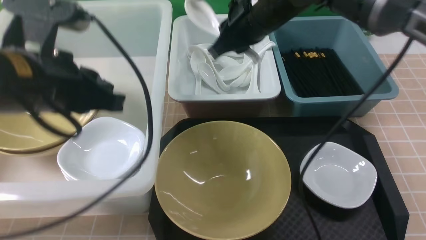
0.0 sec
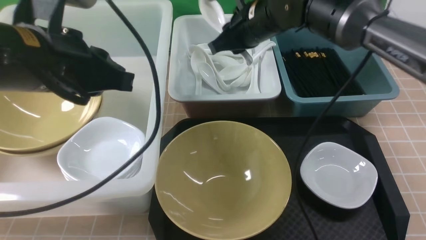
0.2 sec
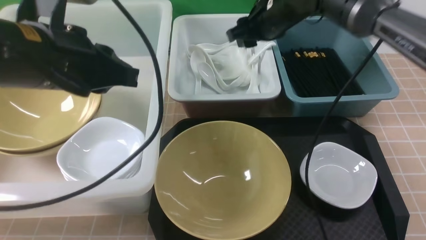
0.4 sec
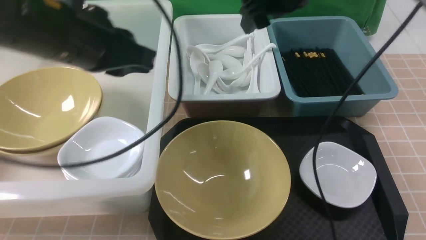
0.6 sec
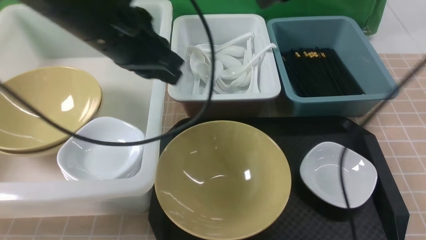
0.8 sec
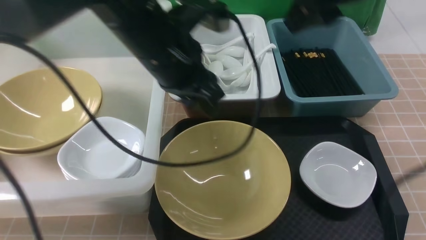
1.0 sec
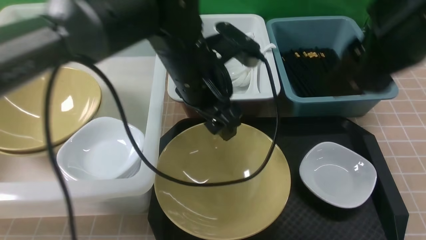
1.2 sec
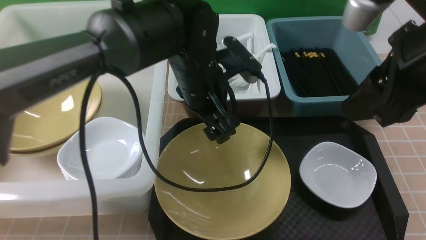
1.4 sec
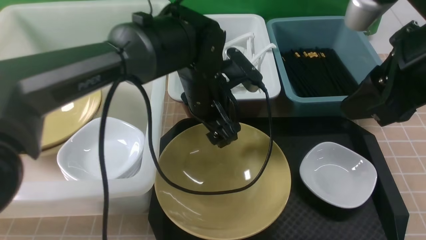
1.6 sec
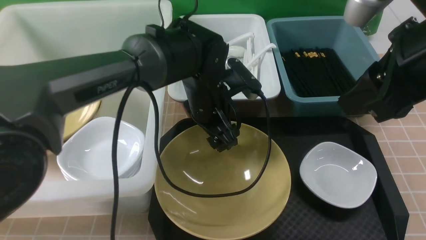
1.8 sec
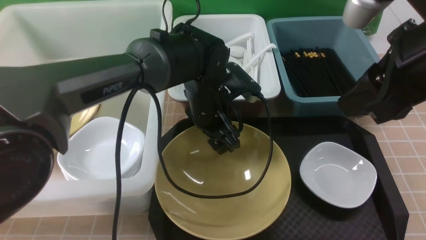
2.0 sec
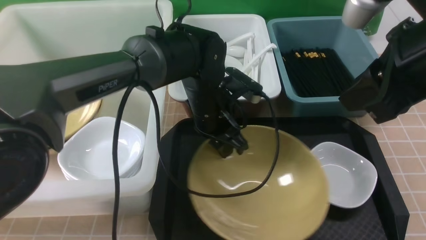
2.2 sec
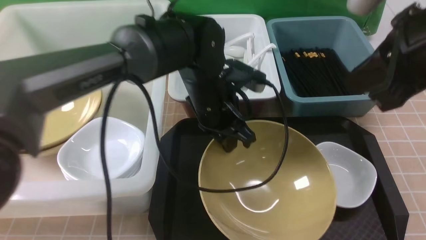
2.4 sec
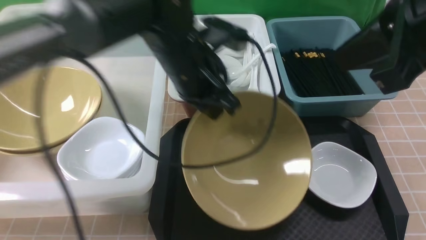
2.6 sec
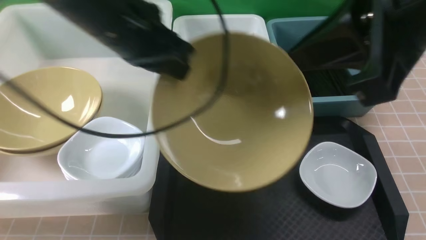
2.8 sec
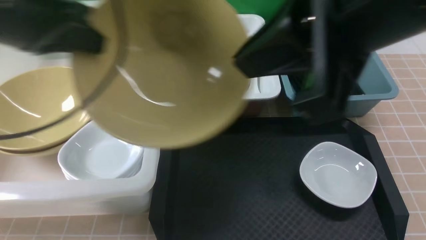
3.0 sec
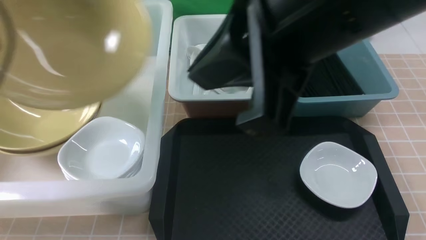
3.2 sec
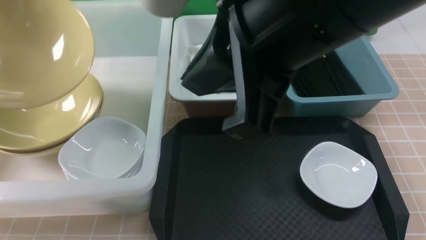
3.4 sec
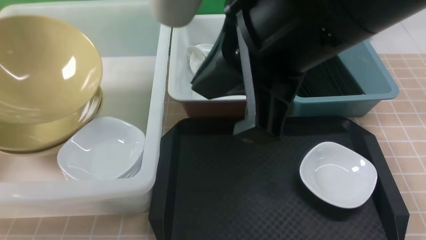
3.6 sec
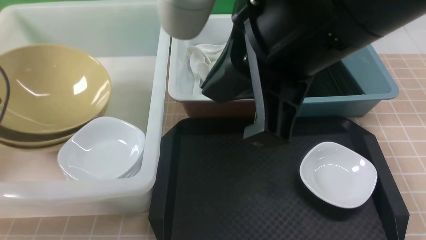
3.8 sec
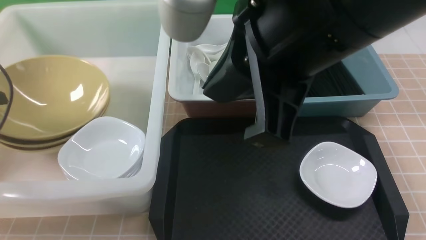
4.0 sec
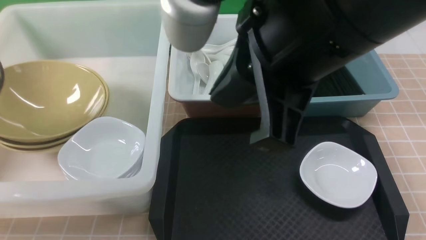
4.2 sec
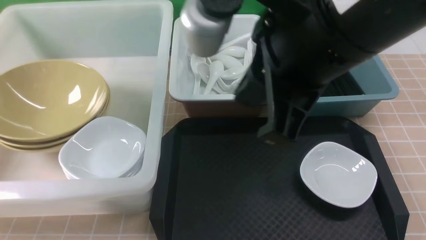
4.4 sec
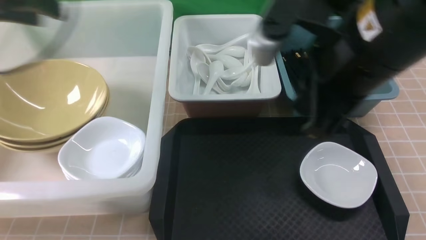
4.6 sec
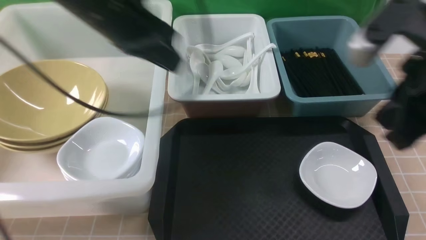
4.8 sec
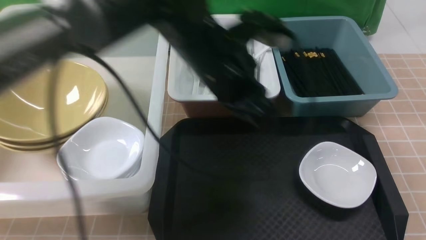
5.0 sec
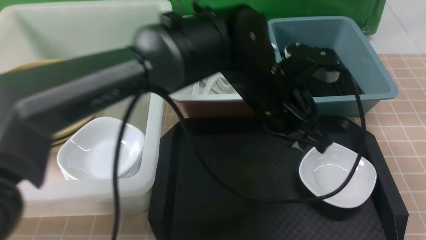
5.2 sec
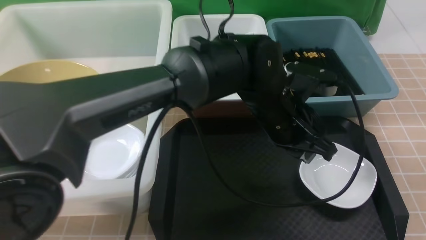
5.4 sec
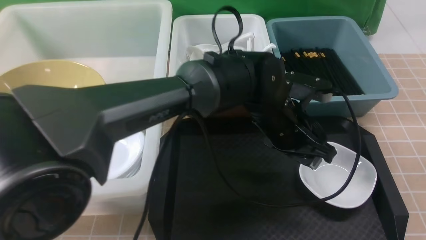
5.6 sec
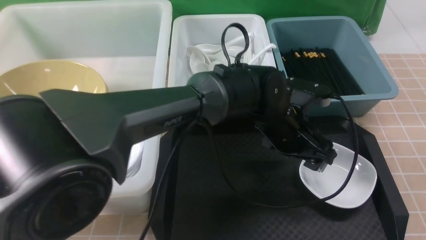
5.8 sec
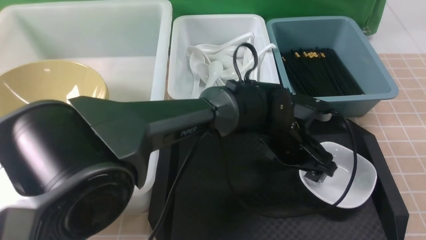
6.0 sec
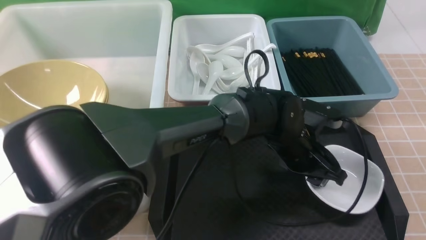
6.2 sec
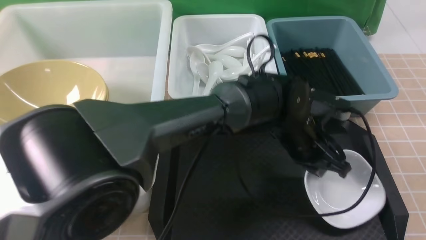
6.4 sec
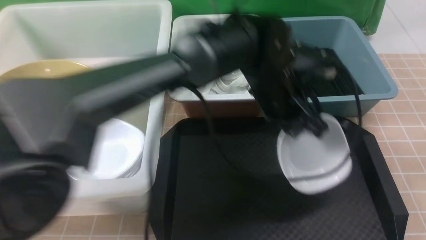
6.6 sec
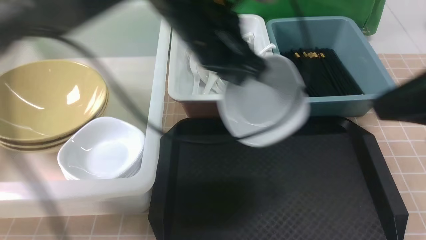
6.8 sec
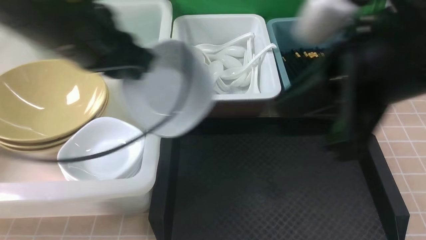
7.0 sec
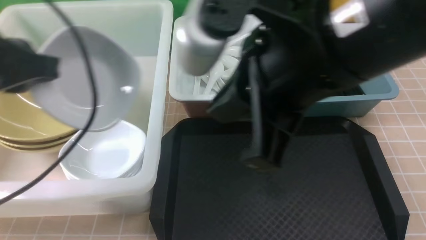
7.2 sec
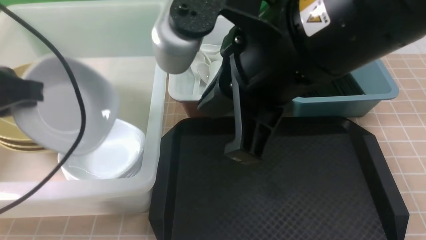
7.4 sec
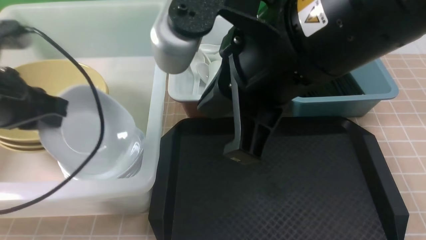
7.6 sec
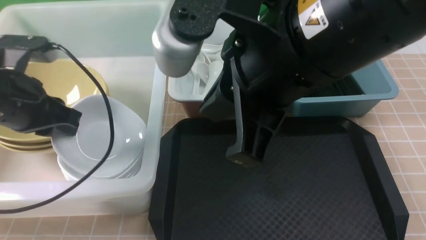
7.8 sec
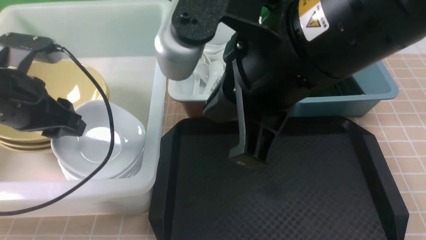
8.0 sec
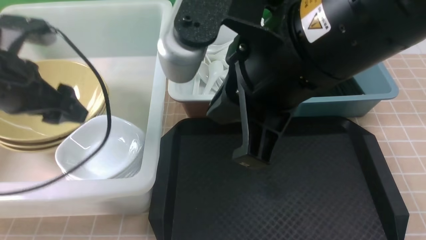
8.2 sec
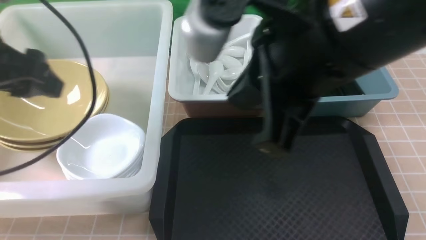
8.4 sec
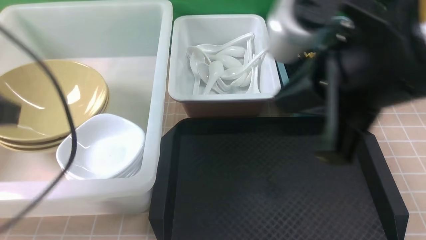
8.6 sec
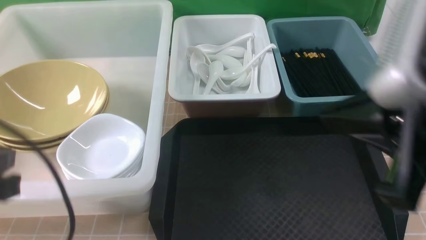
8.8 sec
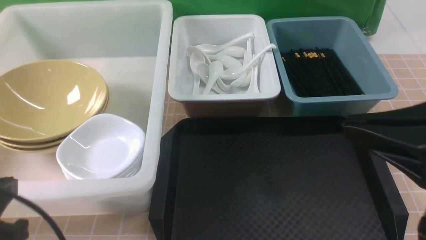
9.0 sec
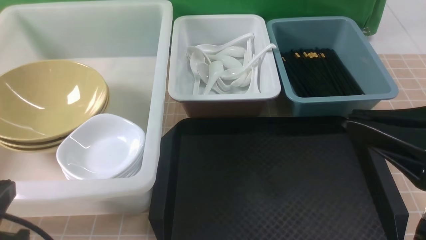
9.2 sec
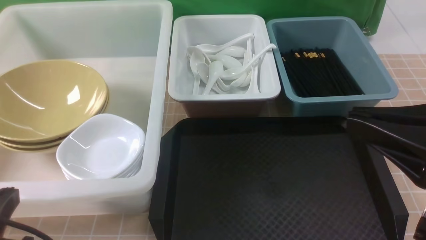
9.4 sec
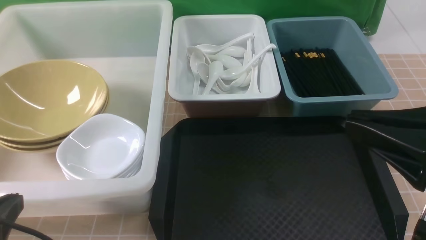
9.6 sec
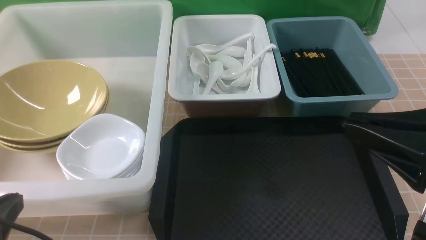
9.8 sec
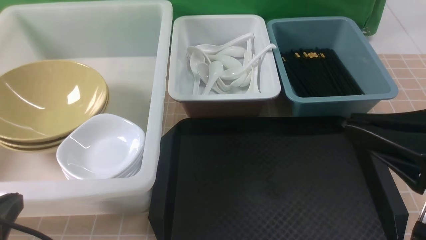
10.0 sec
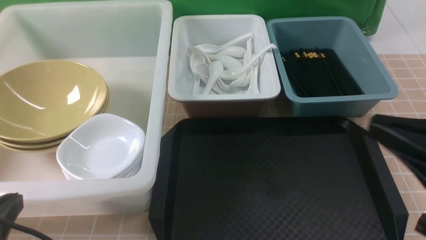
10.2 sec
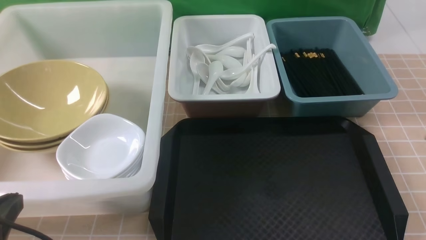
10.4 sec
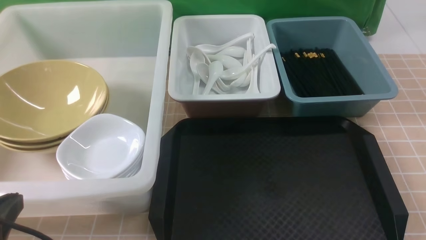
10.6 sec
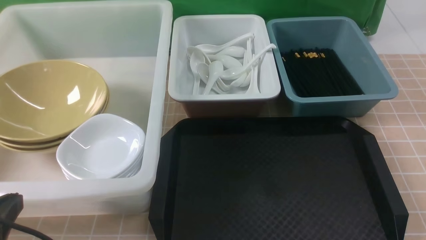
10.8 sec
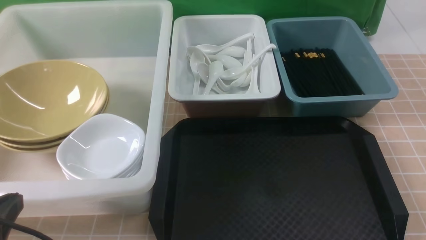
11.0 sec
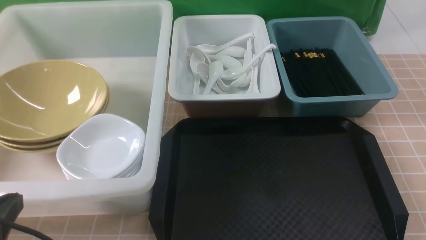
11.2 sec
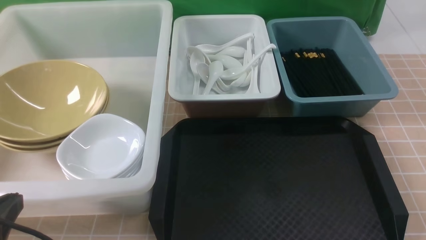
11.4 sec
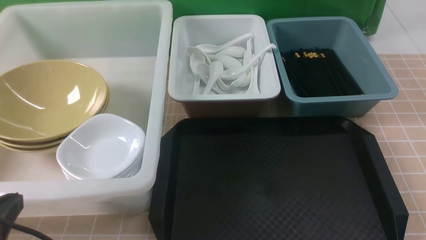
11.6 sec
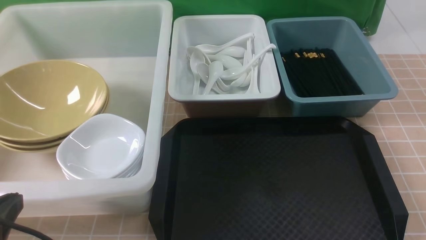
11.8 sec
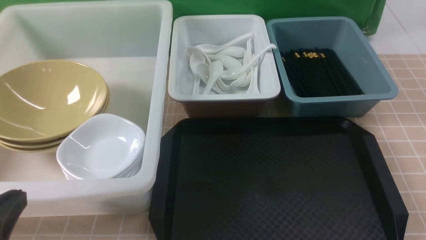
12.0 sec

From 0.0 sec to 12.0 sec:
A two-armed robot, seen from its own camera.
Task of the whole recording: on brown table put chopsticks spoon bowls plates into blue grey white boxes.
Step, from 0.0 sec to 0.6 sec: use the right arm to put the soup spoon into the small storage box in the middle.
Step, from 0.8 sec to 2.4 sec: use the left arm to grab the yellow noodle bowl on the left.
Step, from 2.6 sec to 4.2 sec: use the left arm to put the noodle bowl into the large storage box on the left.
Step, from 4.4 sec to 6.6 sec: use the left arm to grab the plate.
Step, from 6.8 sec to 8.4 sec: use the left arm to put the plate into the large storage box on the left.
From 0.0 sec to 1.6 sec: The right gripper is displaced backward, to the right and upward by approximately 25 cm, and opens up. The left gripper travels to the right, forward and downward by about 25 cm, and opens its fingers.
From 1.6 sec to 3.0 sec: The right gripper is displaced to the left and upward by about 10 cm, and closes up. Meanwhile the left gripper travels to the left and upward by some 30 cm, and closes up.
From 3.0 sec to 4.4 sec: The left gripper heads to the left and forward, covering some 10 cm, and opens up; the right gripper shifts by about 5 cm.
From 4.4 sec to 6.0 sec: The left gripper heads to the right and downward, covering approximately 50 cm, and closes, then opens again; the right gripper moves to the right and backward, about 20 cm.
From 6.0 sec to 7.6 sec: The right gripper travels to the left by about 20 cm, while the left gripper moves to the left and upward, roughly 40 cm, and closes up.
From 7.6 sec to 9.0 sec: The left gripper goes some 15 cm backward, and opens, then closes once more. The right gripper goes some 15 cm to the right and backward.
From 9.0 sec to 10.4 sec: The right gripper travels downward and to the right by some 15 cm.

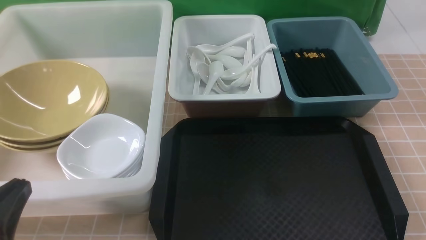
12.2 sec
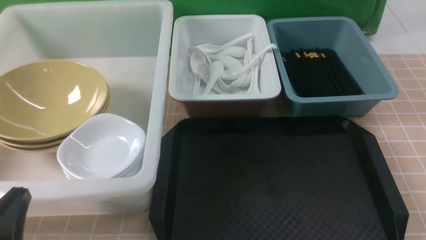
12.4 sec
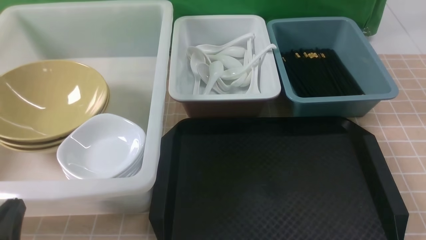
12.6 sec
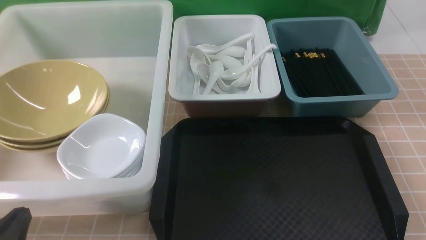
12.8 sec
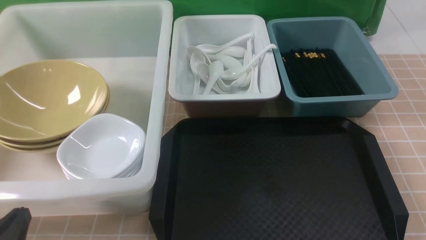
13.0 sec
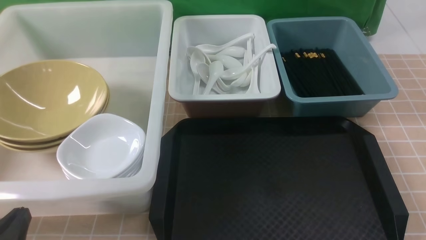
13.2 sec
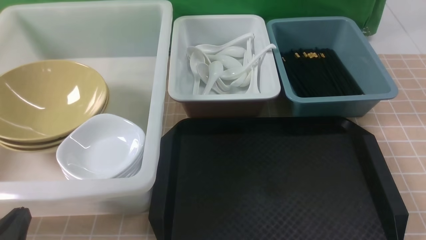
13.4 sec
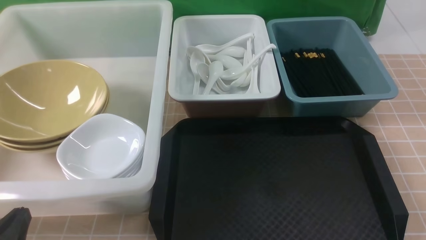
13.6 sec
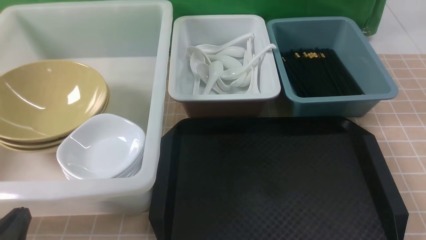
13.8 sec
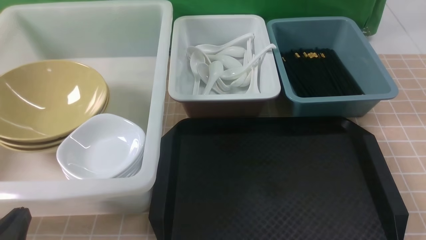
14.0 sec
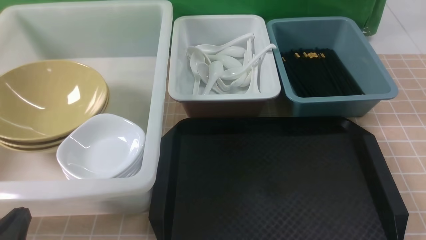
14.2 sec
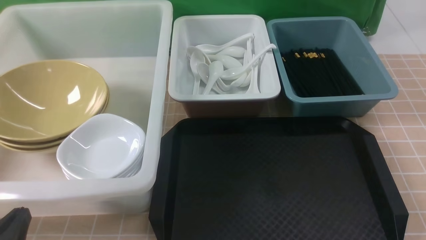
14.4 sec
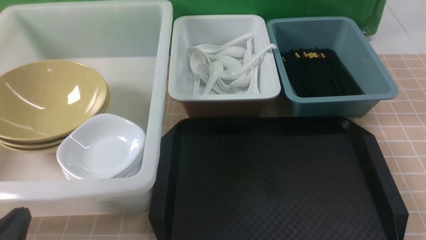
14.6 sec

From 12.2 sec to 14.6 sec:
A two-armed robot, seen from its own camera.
Task of the whole recording: on brown table put chopsticks spoon bowls plates into blue grey white boxes.
From 12.2 sec to 13.4 sec: The left gripper goes some 5 cm downward.
From 13.4 sec to 14.6 sec: Both grippers stay put.
